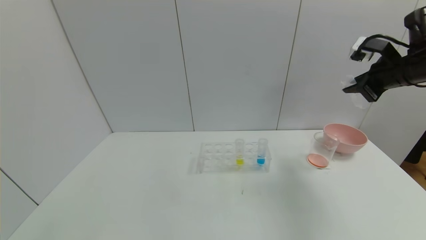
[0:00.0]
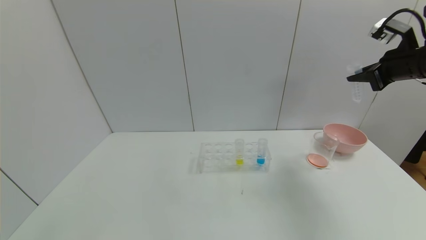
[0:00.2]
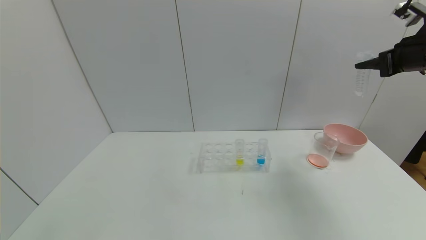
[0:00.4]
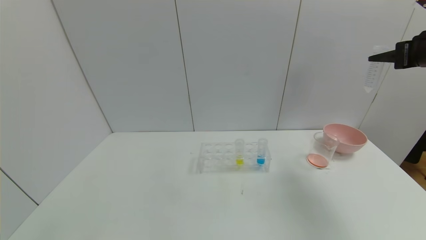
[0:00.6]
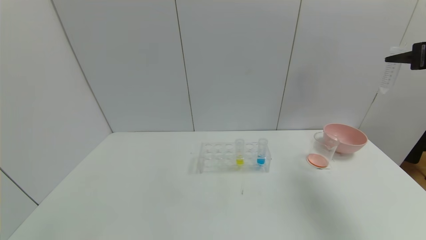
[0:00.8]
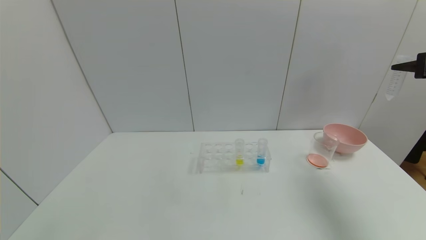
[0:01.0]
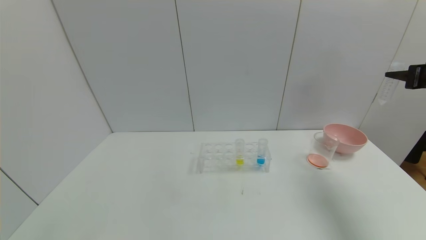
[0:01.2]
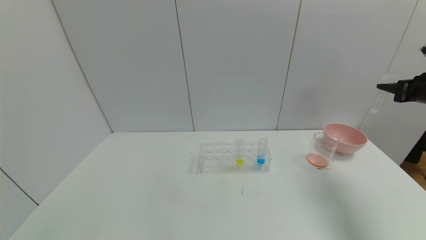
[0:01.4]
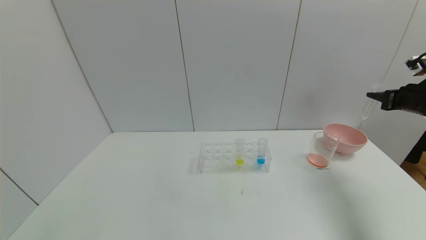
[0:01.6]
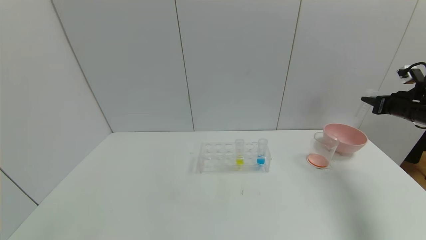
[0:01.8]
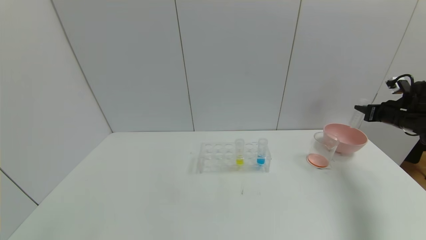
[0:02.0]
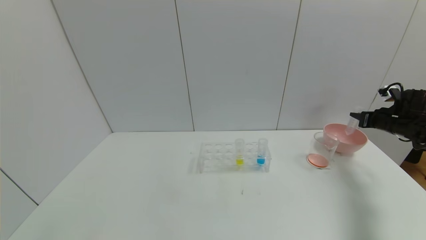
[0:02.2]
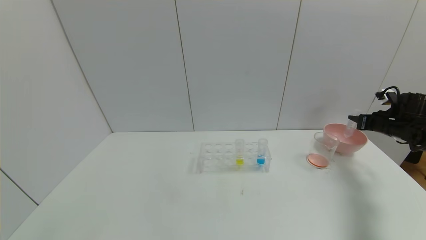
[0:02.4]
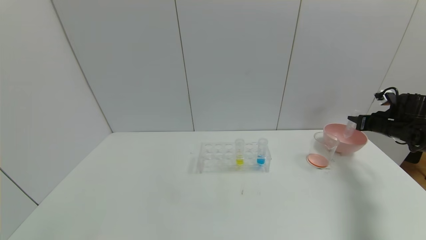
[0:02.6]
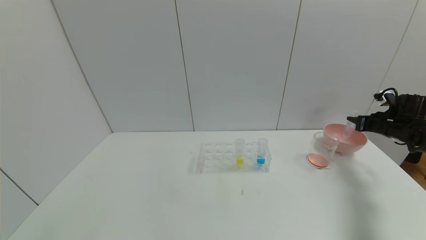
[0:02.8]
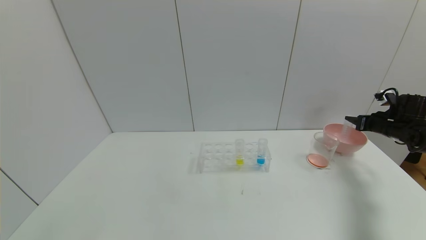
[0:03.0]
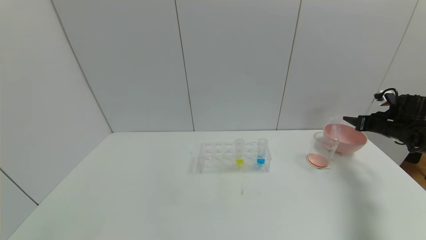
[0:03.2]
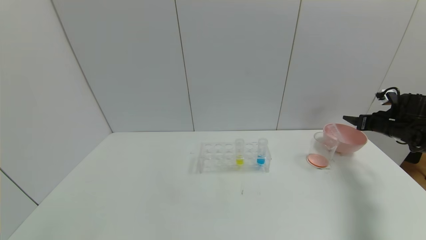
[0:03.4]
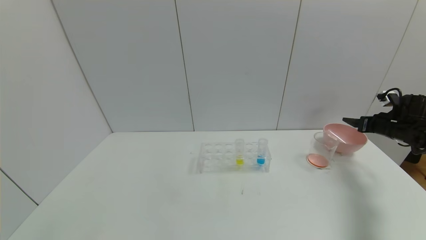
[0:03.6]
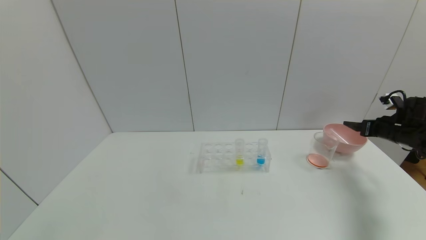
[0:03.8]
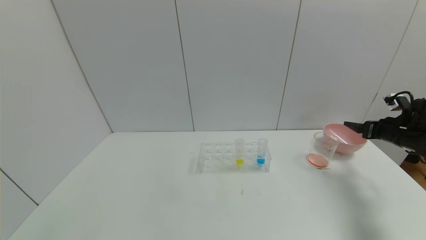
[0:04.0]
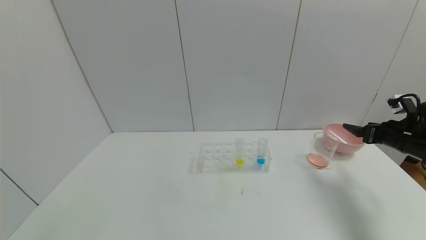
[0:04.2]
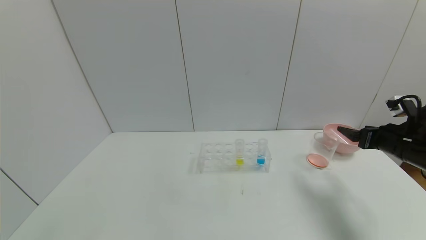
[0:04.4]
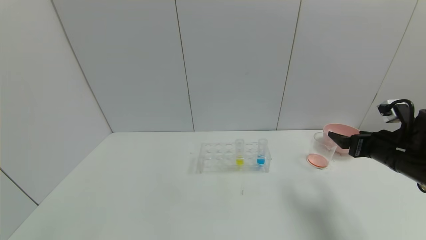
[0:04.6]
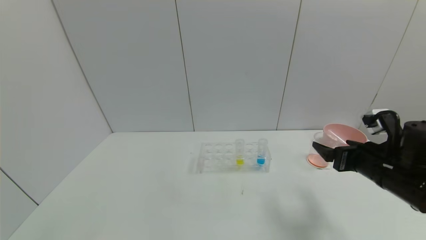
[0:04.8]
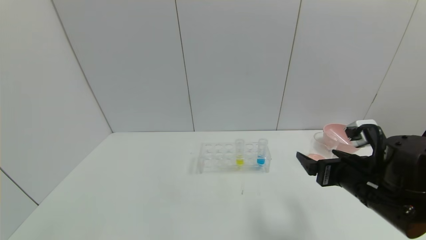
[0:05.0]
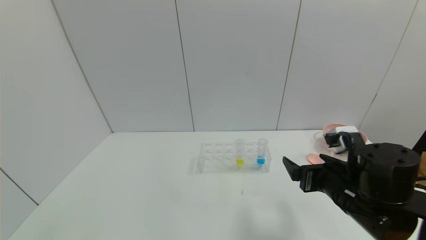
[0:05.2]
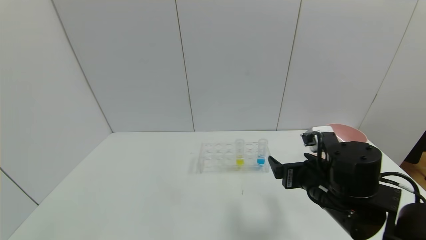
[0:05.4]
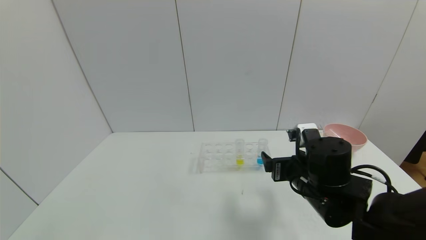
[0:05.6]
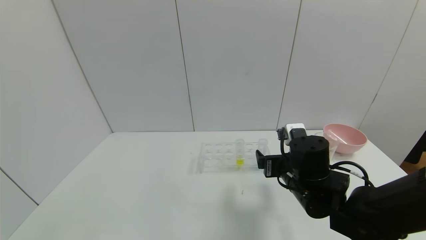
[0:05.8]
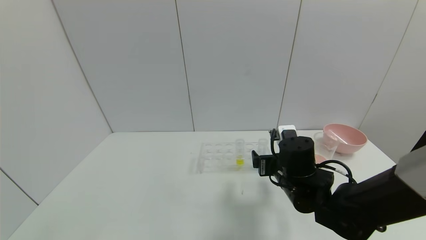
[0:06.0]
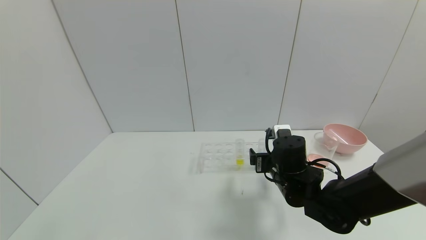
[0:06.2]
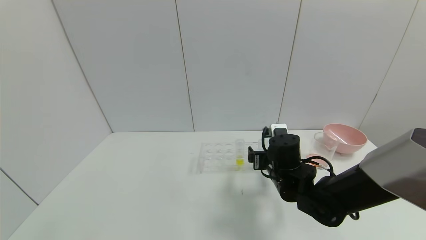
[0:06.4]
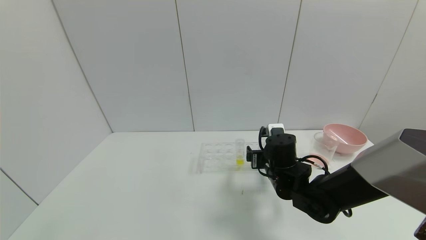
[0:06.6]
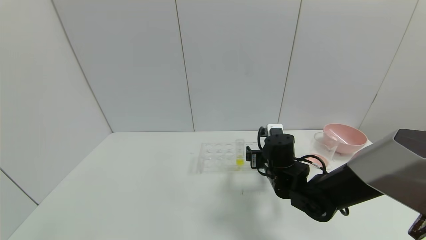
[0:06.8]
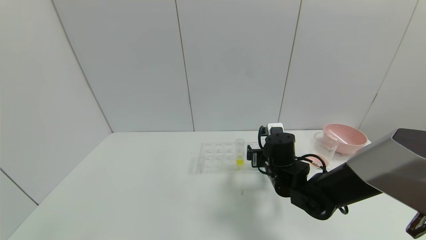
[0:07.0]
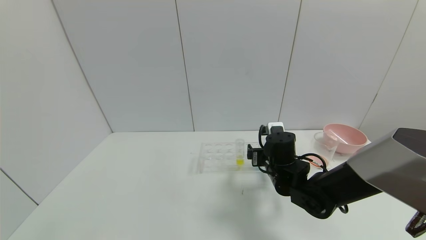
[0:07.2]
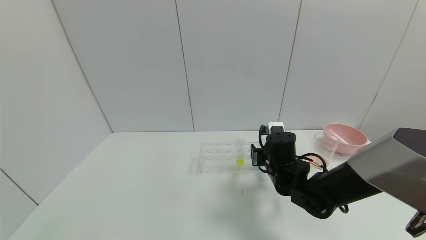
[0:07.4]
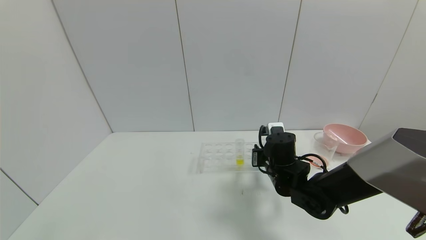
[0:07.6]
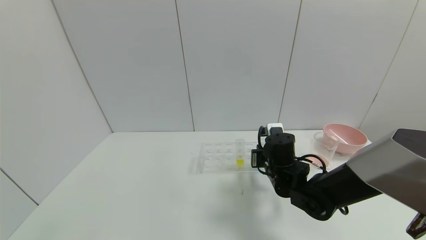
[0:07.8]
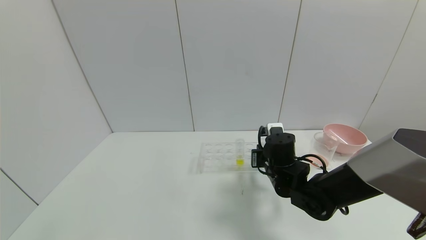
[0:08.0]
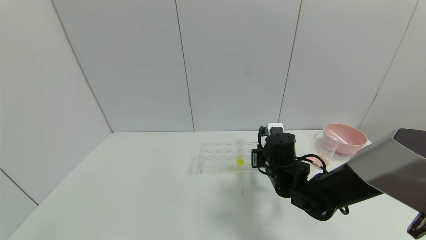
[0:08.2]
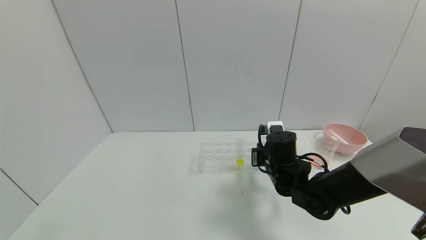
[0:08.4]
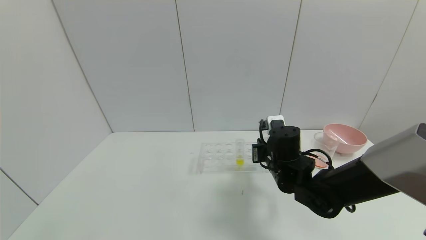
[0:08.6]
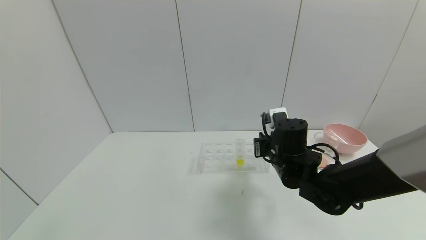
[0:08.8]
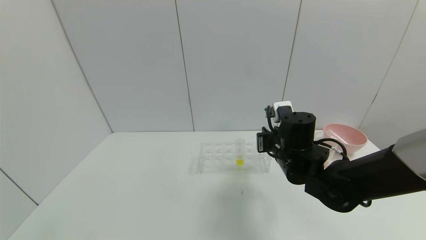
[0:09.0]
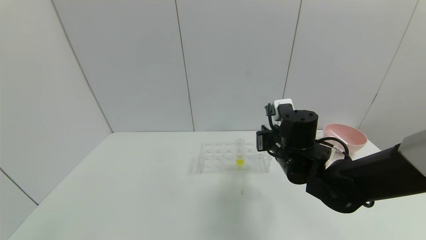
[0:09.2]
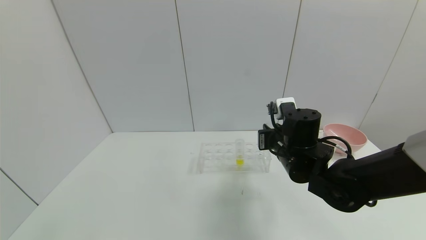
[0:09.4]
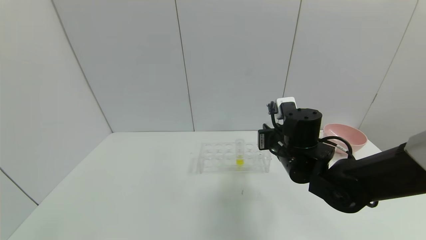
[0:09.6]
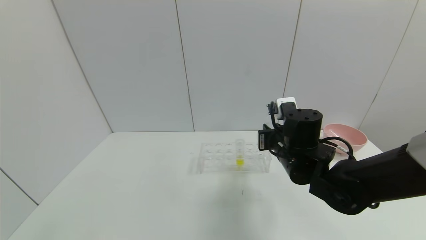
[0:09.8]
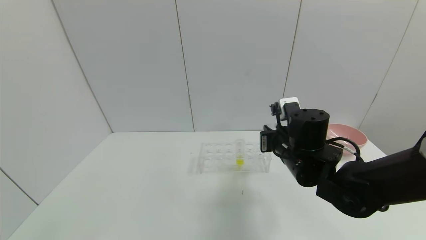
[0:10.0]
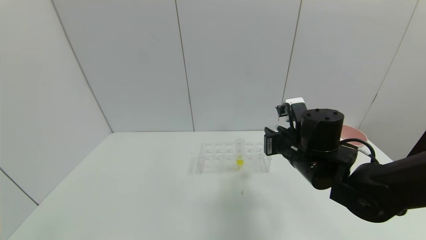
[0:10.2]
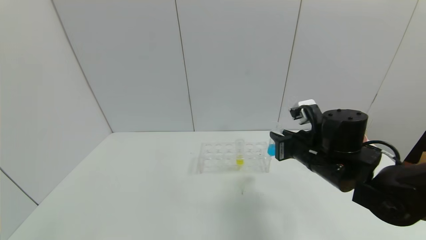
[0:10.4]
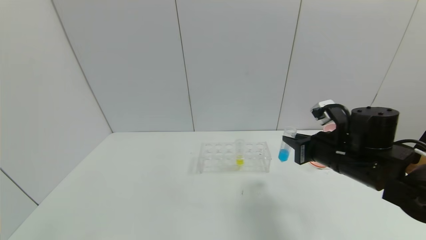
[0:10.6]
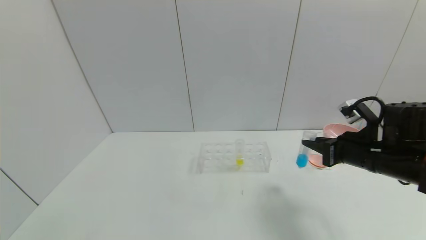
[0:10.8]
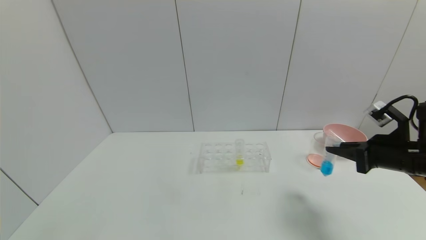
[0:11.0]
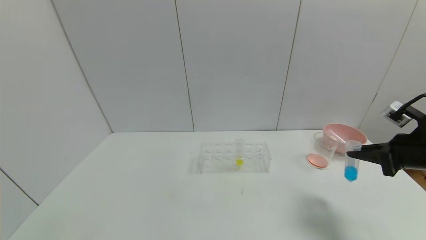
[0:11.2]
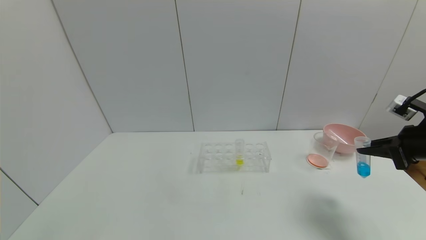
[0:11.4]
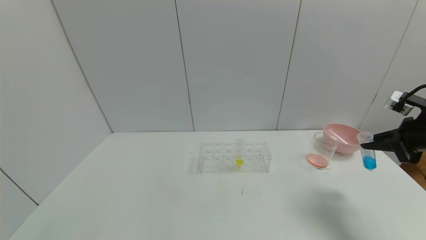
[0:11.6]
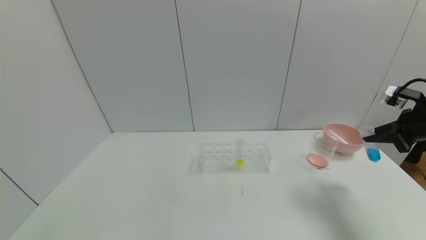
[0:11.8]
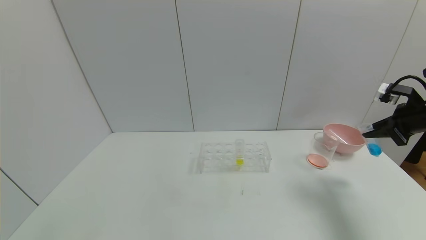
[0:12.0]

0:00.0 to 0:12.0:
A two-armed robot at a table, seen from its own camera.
Task of the whole recording: pick up the test tube with red pigment and the test tube with blue pigment by grippers and pour them into the container.
Step, 0:00.0 to 0:03.8: Place the test tube into the bowl with the right gripper.
Step, 0:04.0 to 0:08.0: Grasp the blue reagent with the right gripper.
0:00.0 to 0:01.6: The right gripper heads to the right and downward, covering roughly 15 cm.
0:01.6 to 0:03.0: The right gripper is displaced downward and forward by some 10 cm, and opens.
0:03.0 to 0:04.4: The right gripper heads backward and to the left, covering approximately 15 cm, and opens up.
0:04.4 to 0:06.0: The right gripper travels to the left by about 25 cm.
0:06.0 to 0:07.6: The right gripper changes place by about 5 cm, and closes its fingers.
0:07.6 to 0:09.0: The right gripper is displaced upward by about 5 cm, and closes its fingers.
0:09.0 to 0:10.4: The right gripper goes some 5 cm to the right.
0:10.4 to 0:12.0: The right gripper is displaced to the right by about 25 cm.

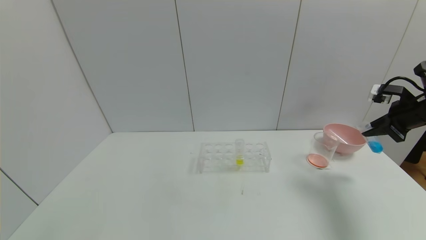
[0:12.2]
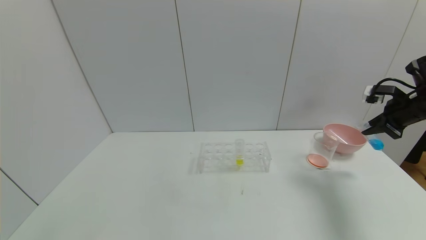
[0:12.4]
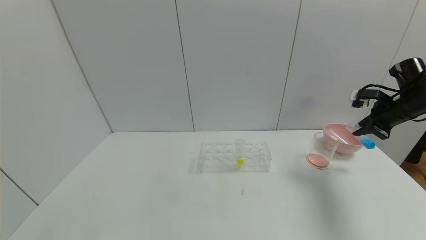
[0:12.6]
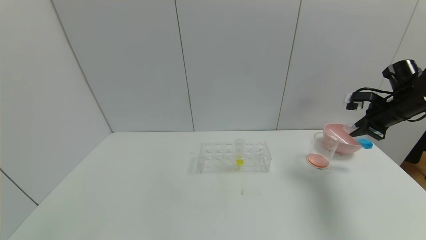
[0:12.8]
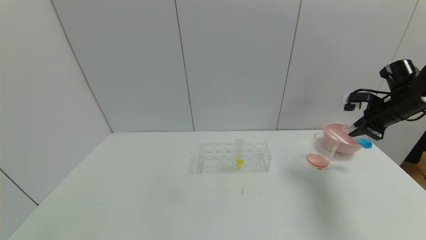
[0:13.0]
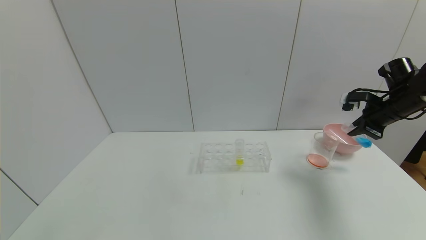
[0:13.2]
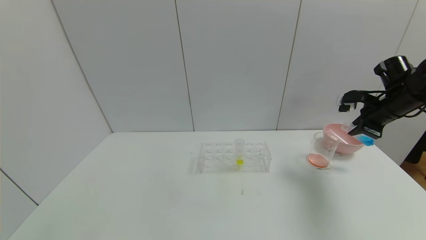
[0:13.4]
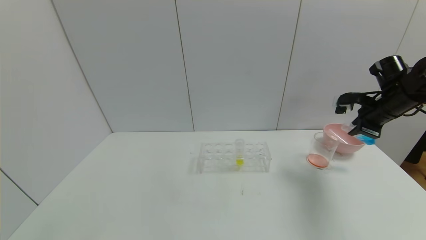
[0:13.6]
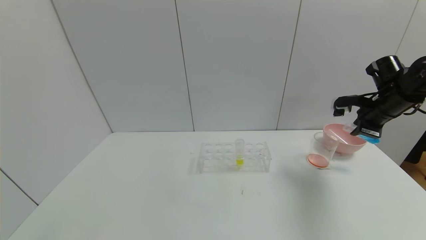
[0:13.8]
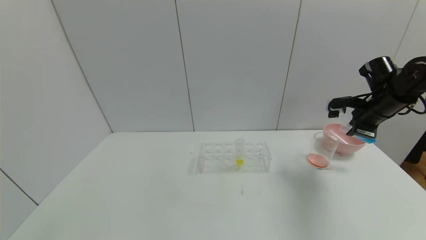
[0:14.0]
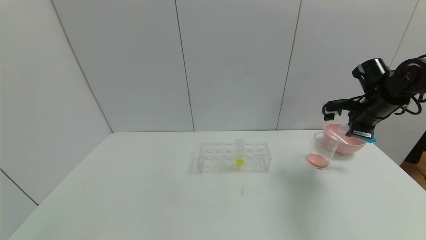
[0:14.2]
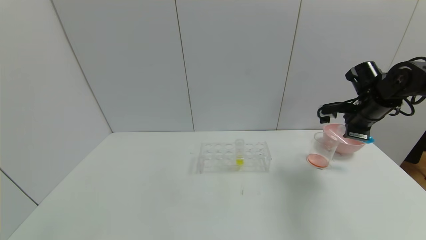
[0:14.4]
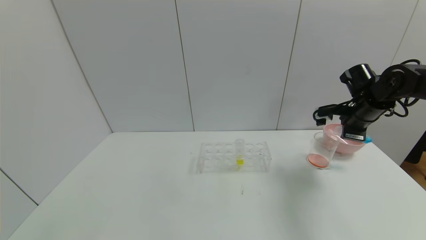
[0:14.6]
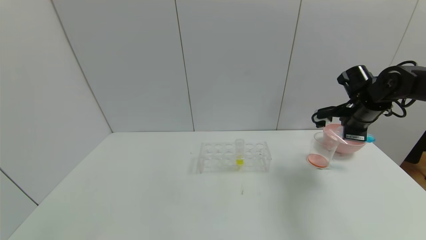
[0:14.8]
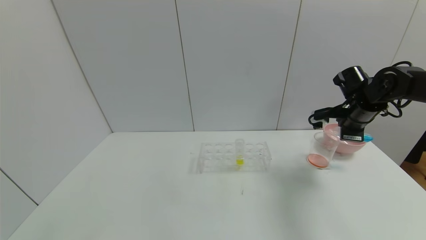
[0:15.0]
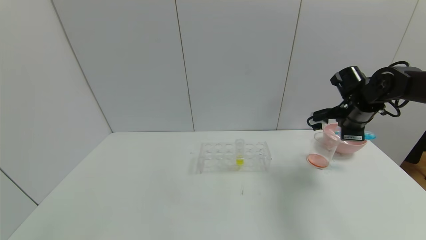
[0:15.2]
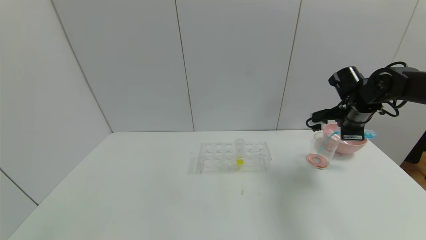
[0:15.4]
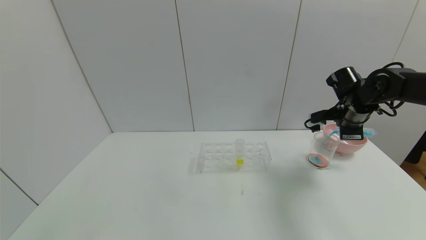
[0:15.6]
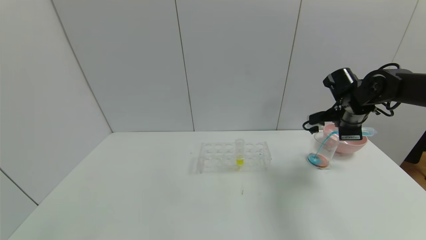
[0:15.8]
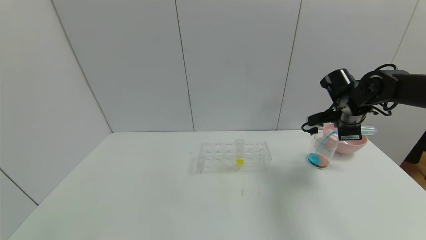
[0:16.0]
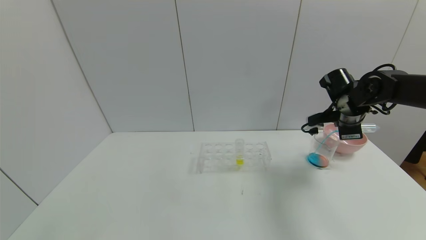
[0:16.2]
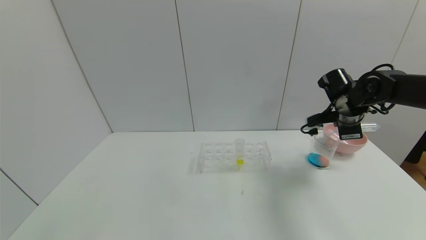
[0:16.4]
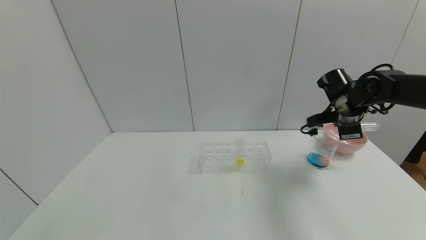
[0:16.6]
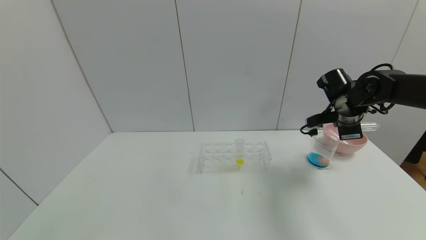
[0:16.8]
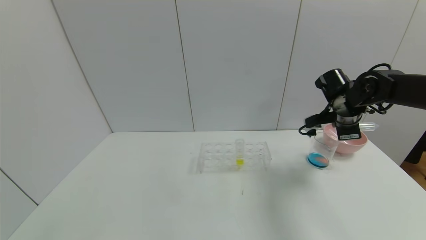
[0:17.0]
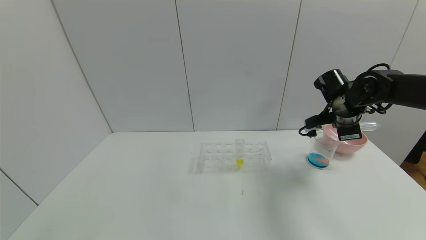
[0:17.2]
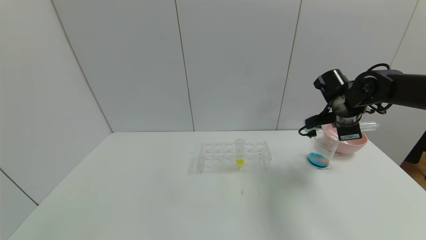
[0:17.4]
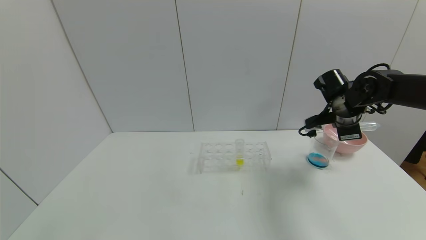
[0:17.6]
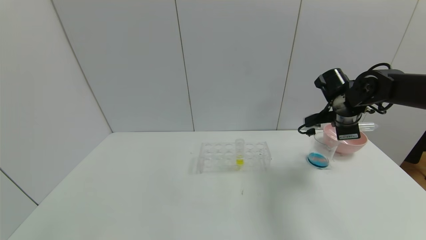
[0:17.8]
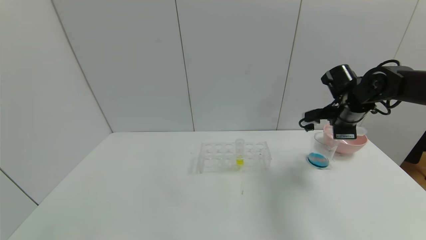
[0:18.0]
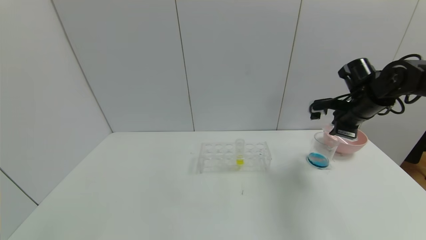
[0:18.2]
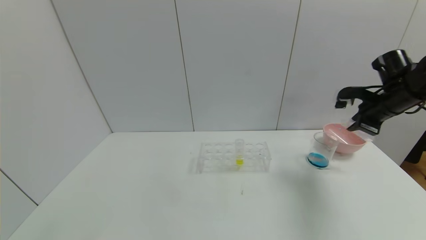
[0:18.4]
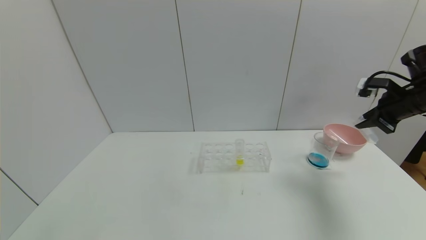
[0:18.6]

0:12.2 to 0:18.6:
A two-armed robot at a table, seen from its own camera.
Task of the whole recording: pick up the test tube with red pigment and the test tube with blue pigment by grippers and pour them into the container.
Step, 0:12.2 to 0:17.4: Pour the blue reagent into the graduated cylinder with the right gripper.
0:12.2 to 0:13.8: The right gripper heads to the left, covering some 5 cm.
0:13.8 to 0:15.4: The right gripper moves to the left, about 5 cm.
0:15.4 to 0:17.0: The grippers move only a little.
0:17.0 to 0:18.6: The right gripper shifts some 15 cm to the right and upward.
